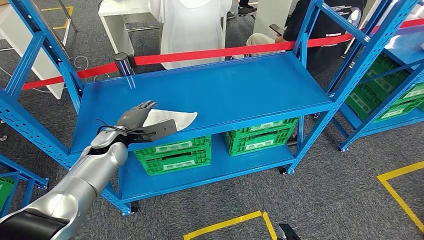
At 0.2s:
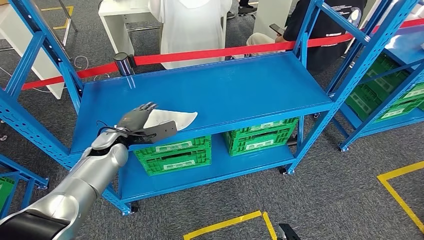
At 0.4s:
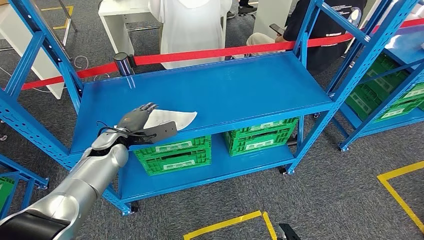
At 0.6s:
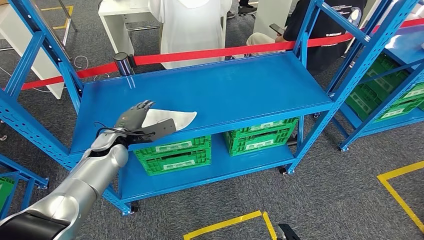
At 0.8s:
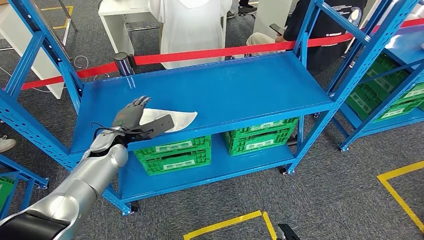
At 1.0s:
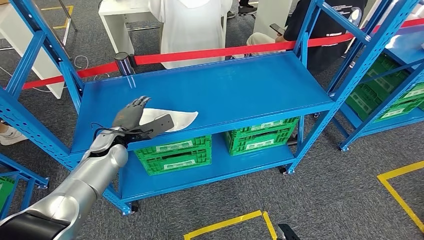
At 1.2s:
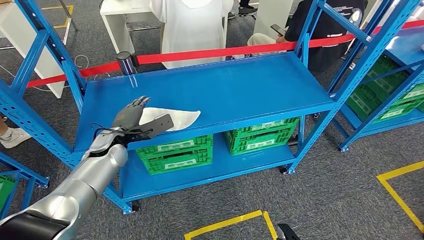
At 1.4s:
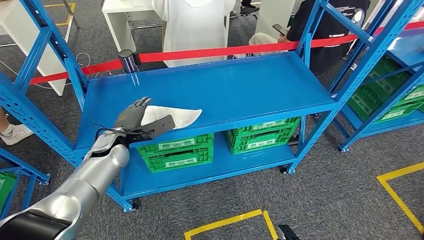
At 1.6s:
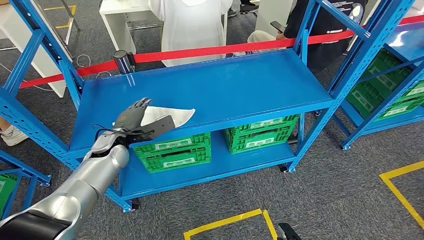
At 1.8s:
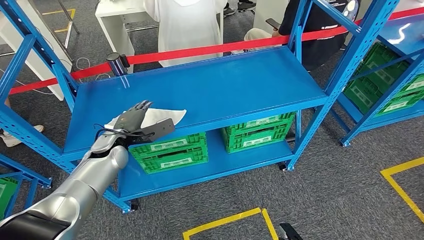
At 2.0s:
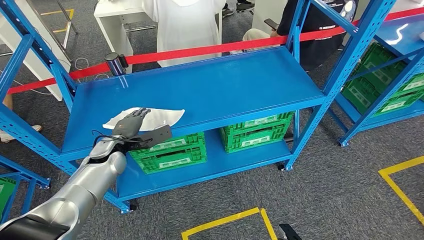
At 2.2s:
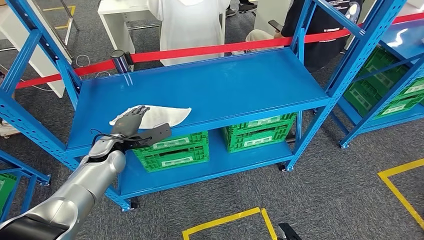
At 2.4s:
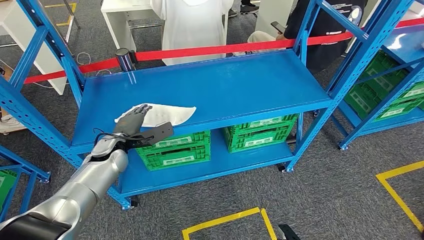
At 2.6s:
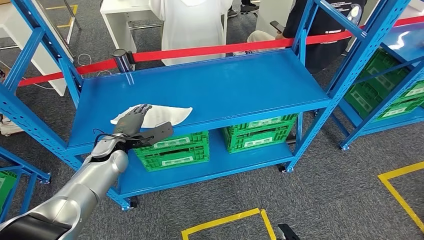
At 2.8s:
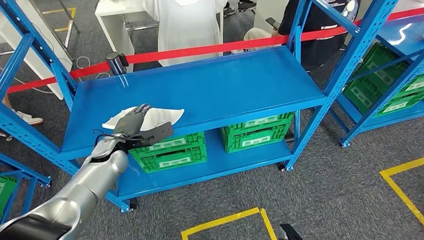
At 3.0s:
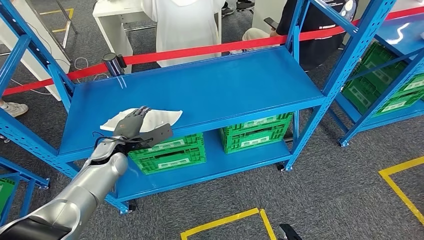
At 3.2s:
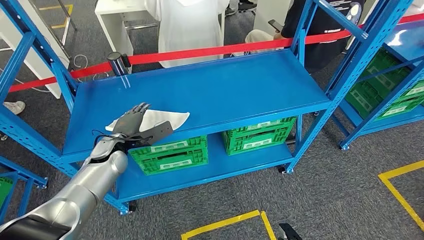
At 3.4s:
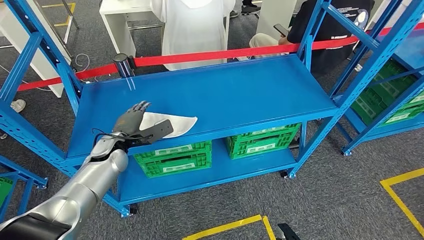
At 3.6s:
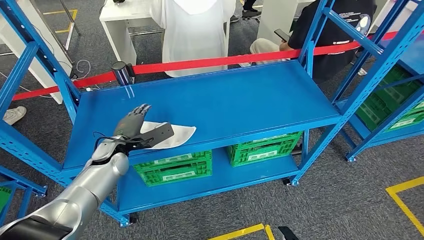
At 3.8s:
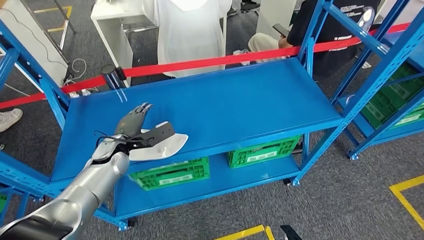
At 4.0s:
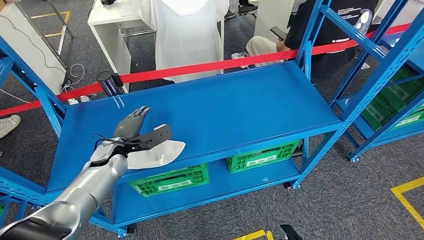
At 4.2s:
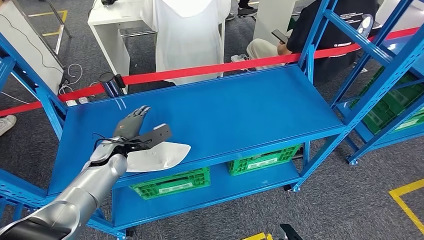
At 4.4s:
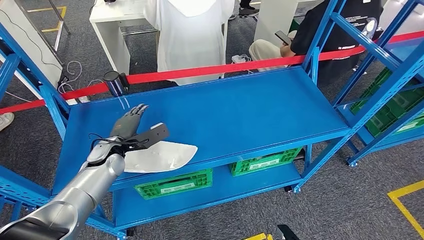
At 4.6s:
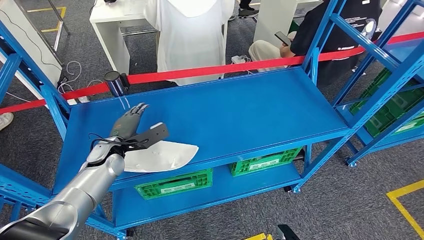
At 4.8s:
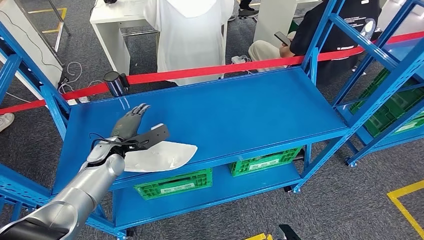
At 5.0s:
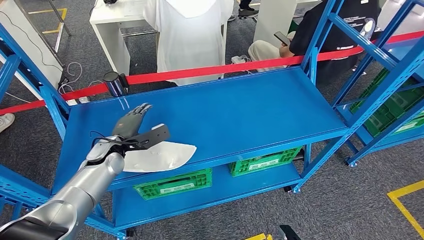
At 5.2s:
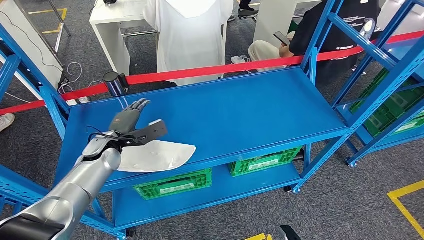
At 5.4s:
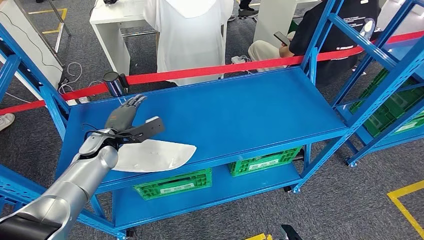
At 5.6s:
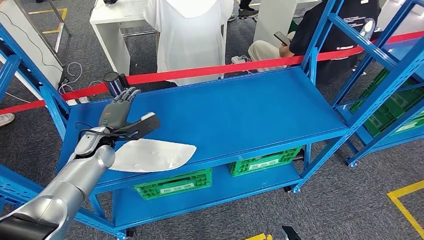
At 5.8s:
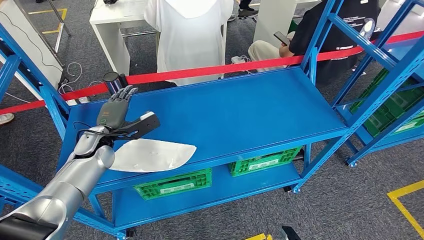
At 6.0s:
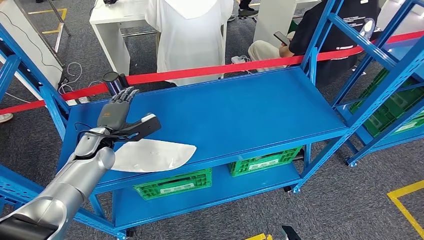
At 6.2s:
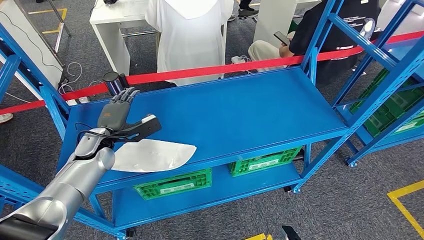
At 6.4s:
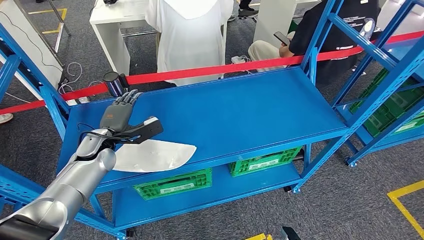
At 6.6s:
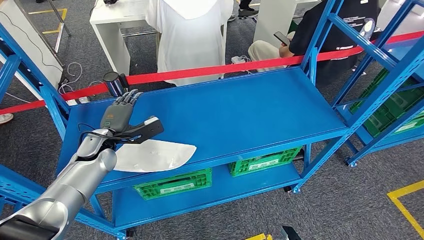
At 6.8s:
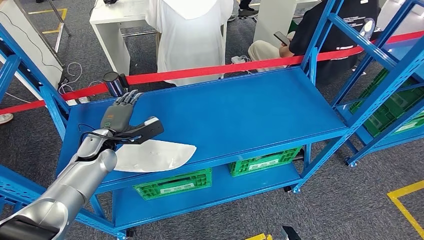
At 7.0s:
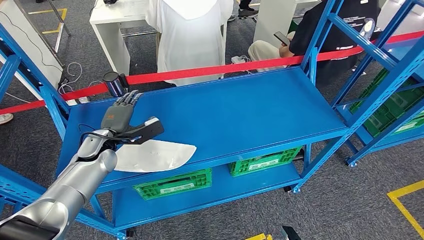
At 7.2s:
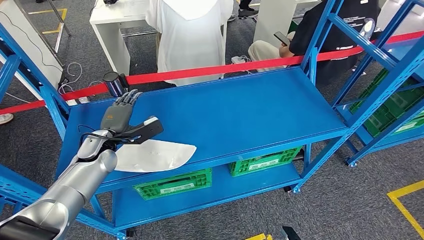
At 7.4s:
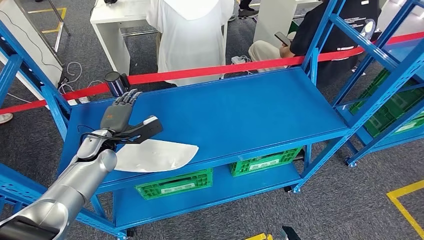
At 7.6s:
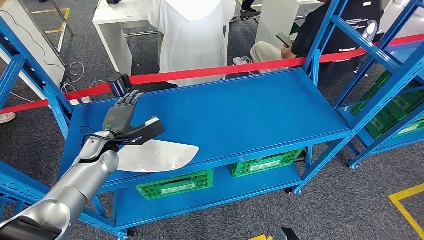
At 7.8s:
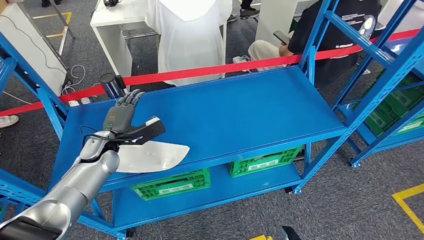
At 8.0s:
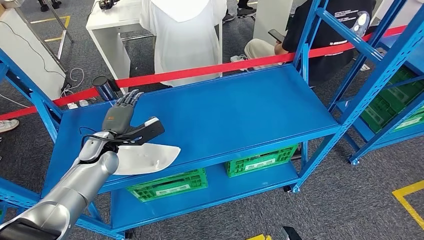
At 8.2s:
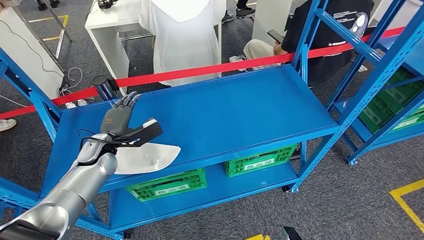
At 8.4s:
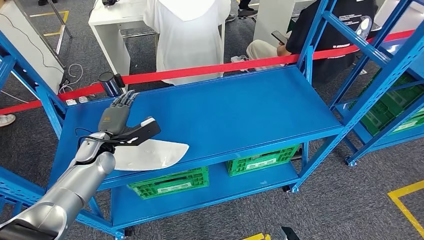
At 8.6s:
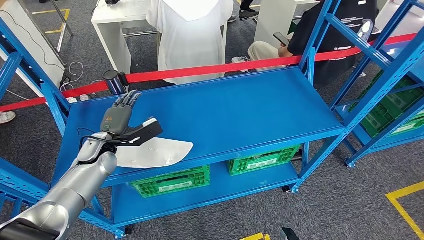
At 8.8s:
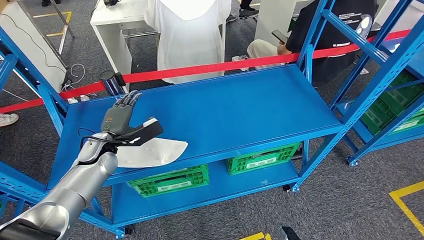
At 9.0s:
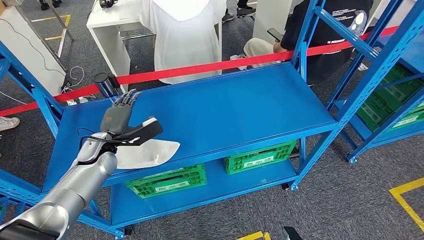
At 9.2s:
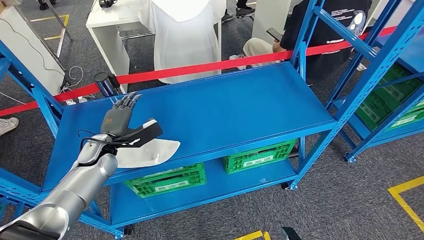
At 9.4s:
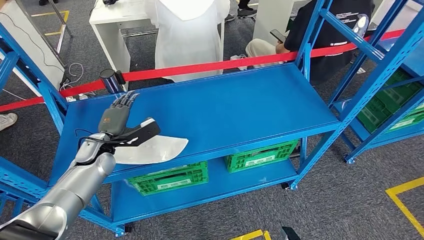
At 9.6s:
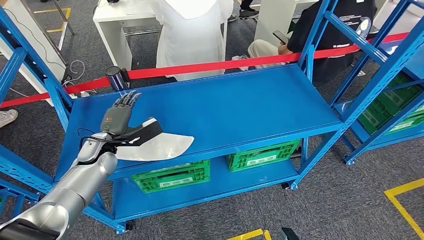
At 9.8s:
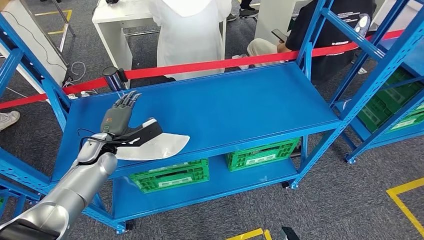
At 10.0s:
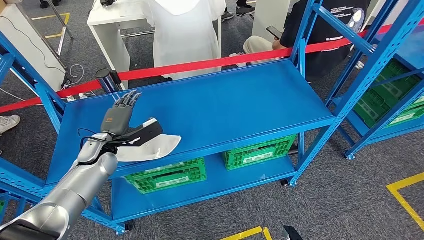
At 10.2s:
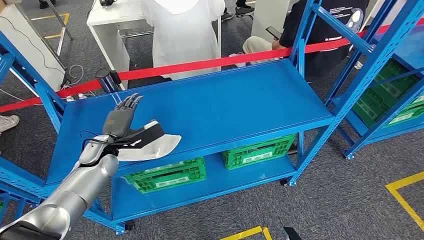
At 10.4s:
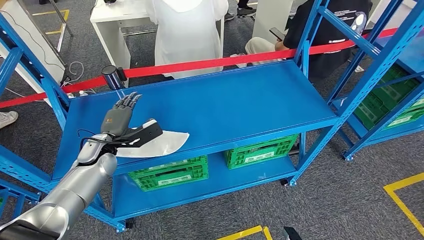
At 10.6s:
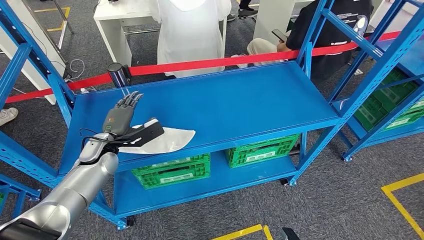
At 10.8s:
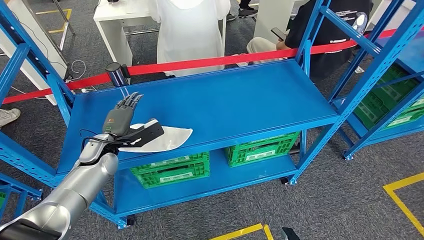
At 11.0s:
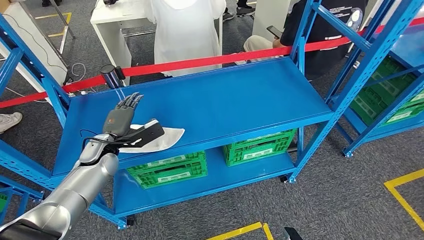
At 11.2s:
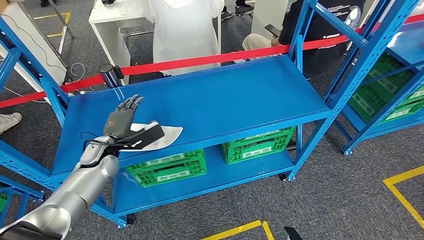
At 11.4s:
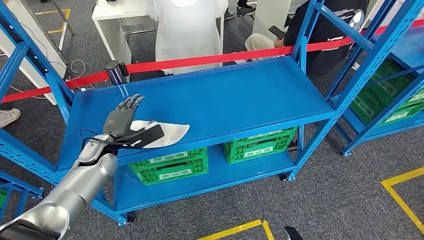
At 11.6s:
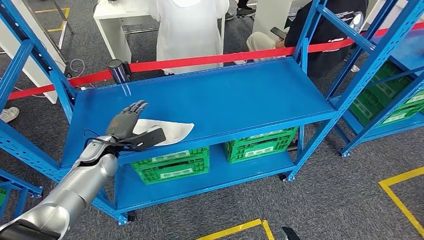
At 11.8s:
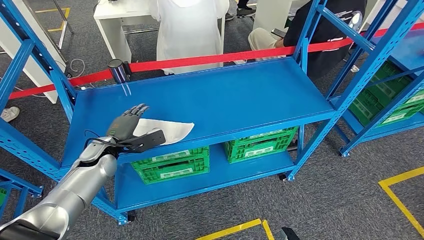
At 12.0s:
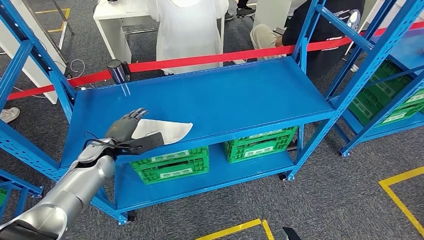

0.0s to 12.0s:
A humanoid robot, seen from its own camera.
0.0s to 1.6s: The hands move only a little.
4.4s to 6.0s: The hands move only a little.

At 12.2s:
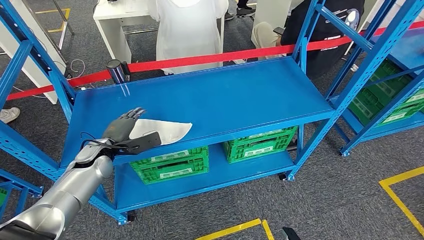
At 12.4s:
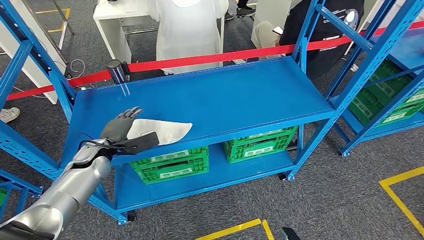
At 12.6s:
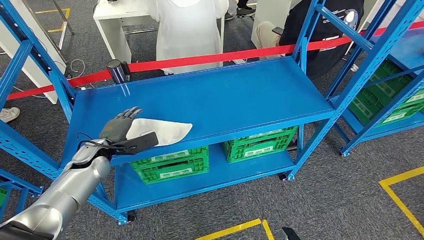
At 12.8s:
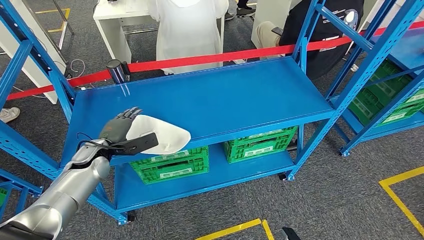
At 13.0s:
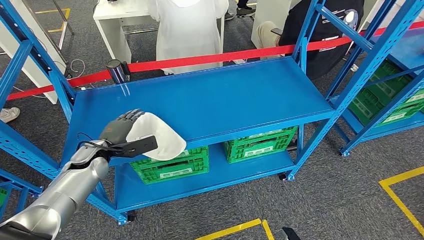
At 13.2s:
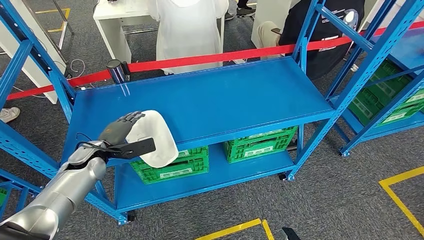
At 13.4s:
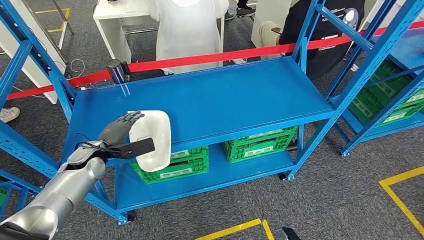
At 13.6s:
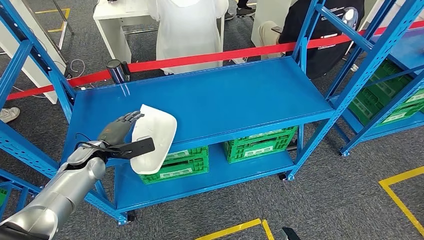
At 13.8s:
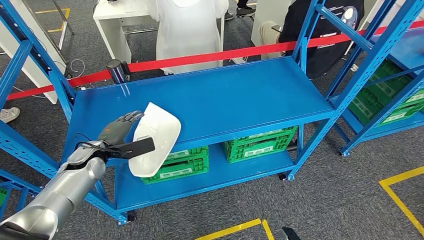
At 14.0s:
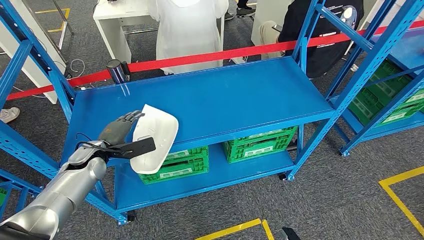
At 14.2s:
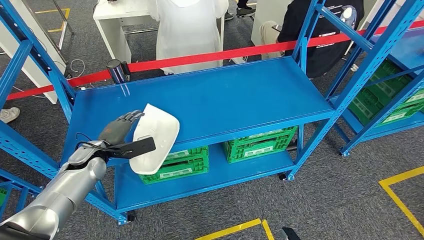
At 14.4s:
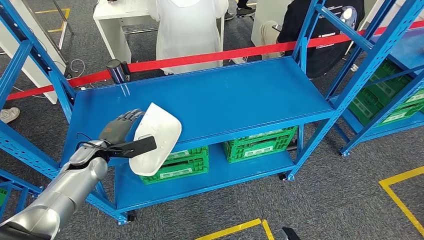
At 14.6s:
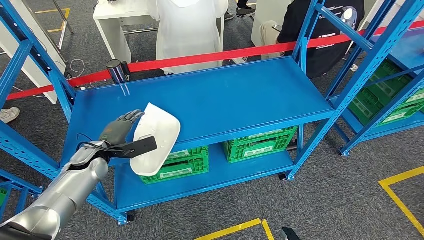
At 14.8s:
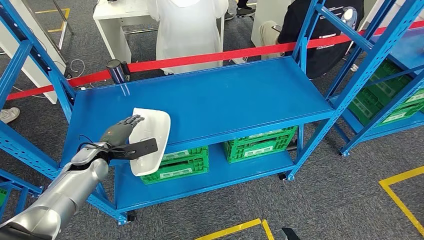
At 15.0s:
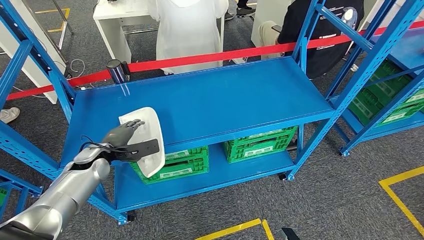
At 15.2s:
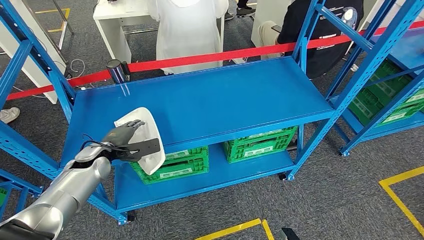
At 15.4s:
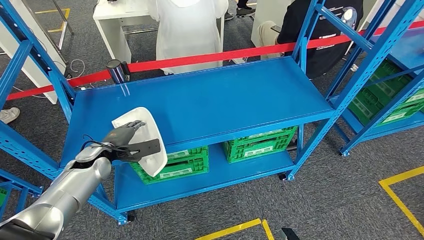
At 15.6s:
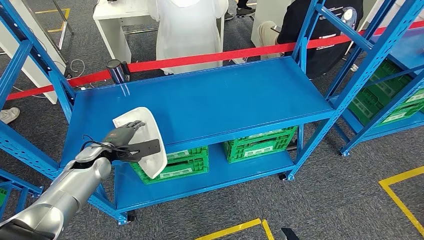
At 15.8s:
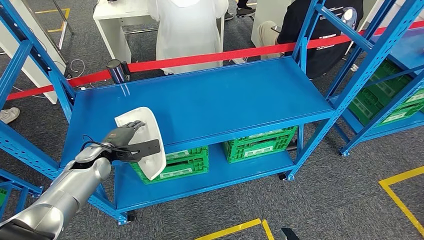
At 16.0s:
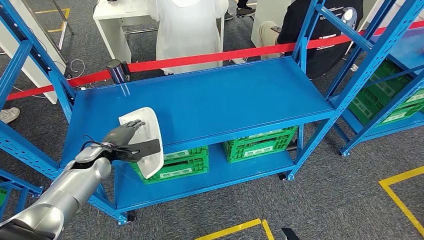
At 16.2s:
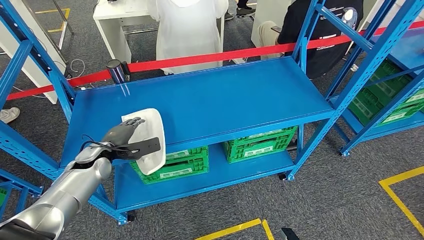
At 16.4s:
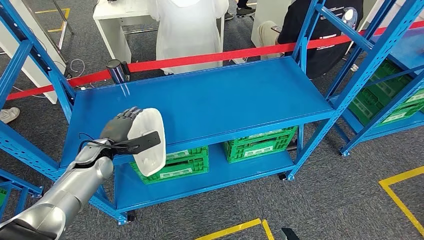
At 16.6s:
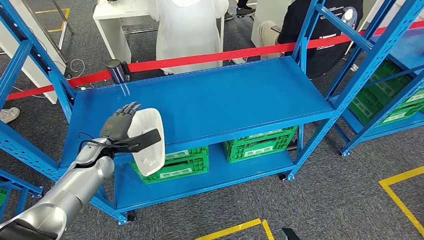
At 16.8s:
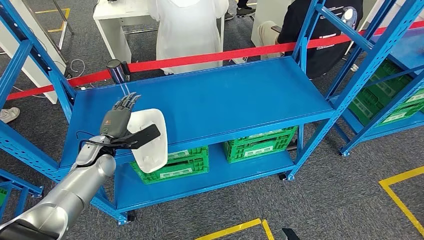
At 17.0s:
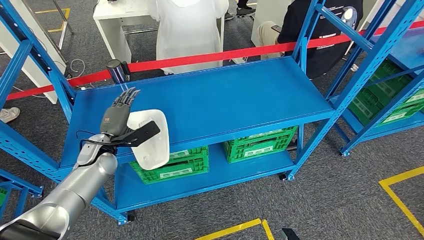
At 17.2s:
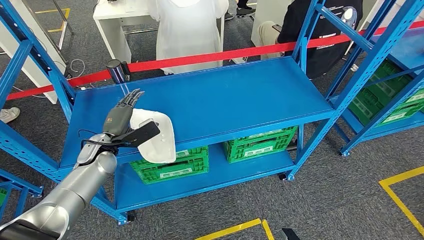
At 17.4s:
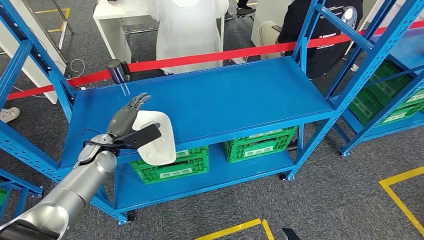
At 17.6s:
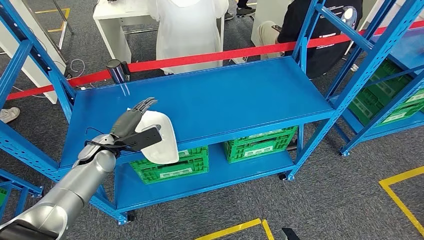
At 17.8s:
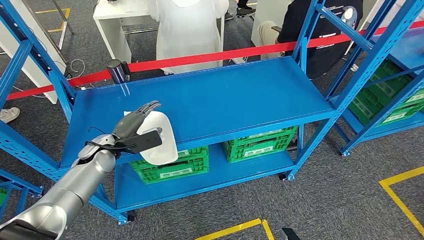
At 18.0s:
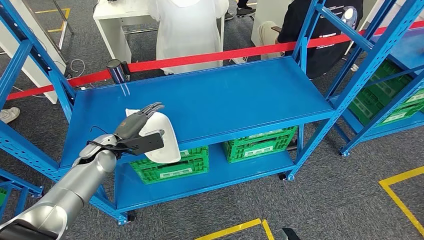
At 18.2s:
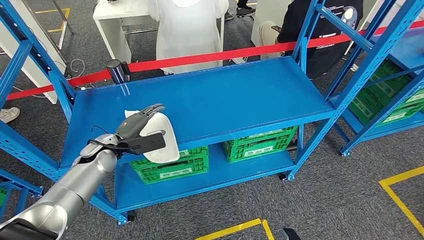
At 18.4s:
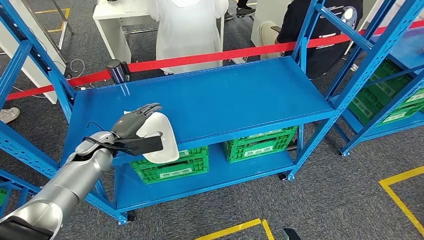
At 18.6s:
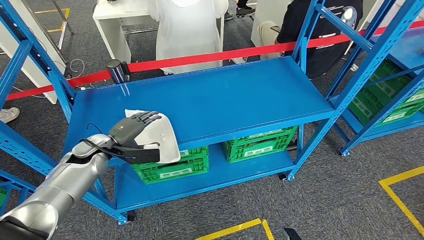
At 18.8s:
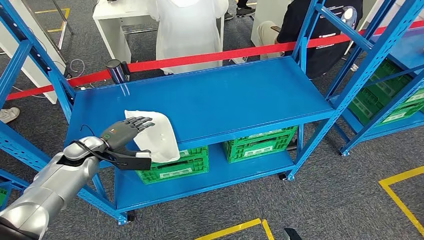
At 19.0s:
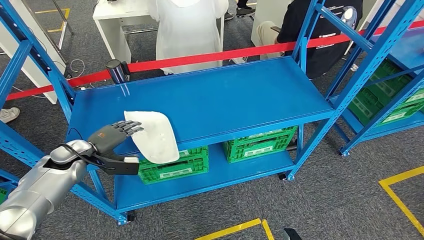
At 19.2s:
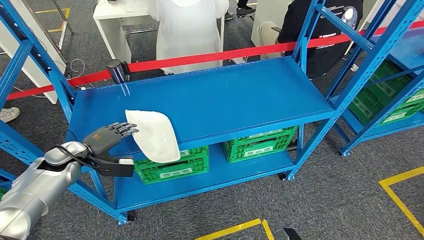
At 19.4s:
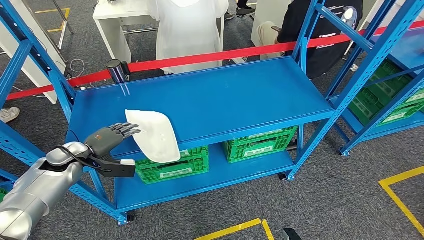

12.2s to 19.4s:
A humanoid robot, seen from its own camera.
12.2s to 16.6s: The hands stay close to where they were, moving slightly.
18.0s to 19.4s: The left hand shifts roughly 10 cm to the left.
